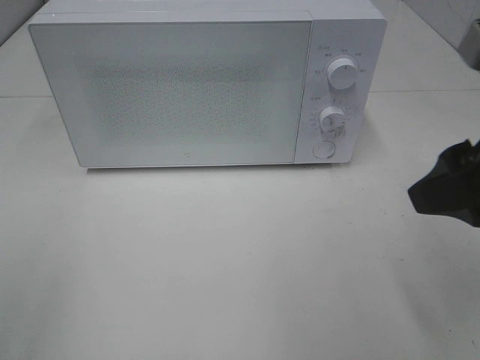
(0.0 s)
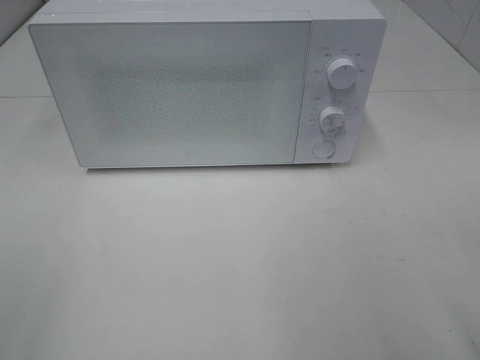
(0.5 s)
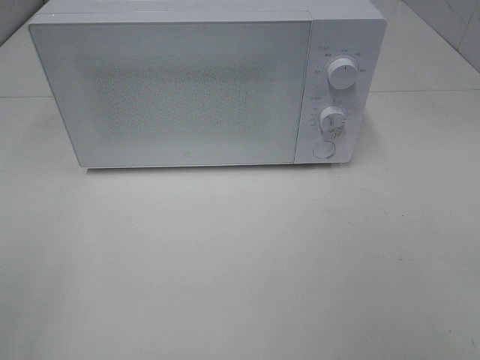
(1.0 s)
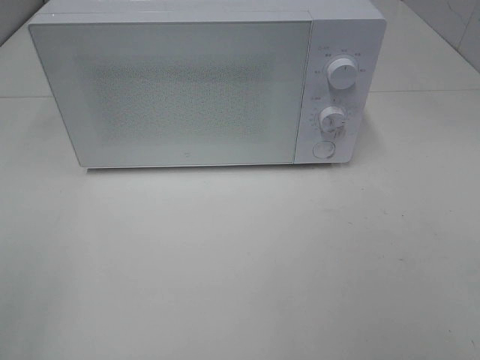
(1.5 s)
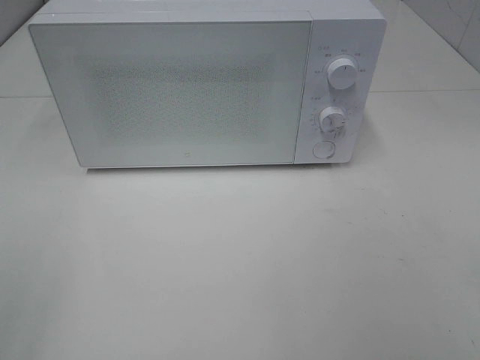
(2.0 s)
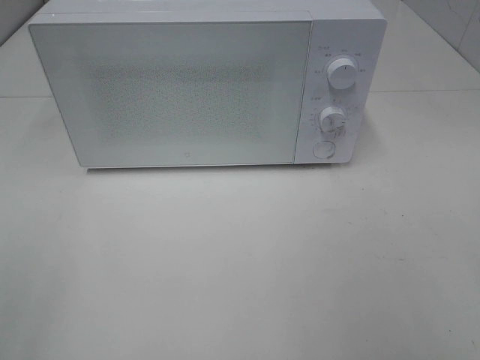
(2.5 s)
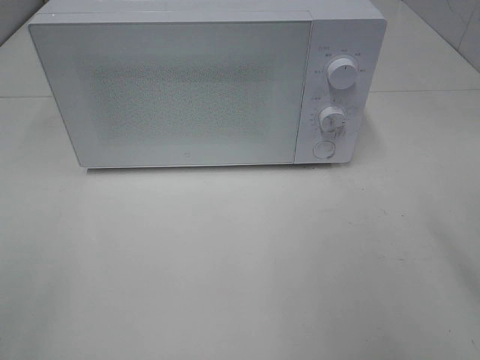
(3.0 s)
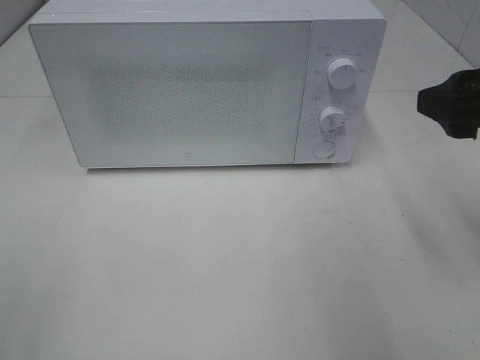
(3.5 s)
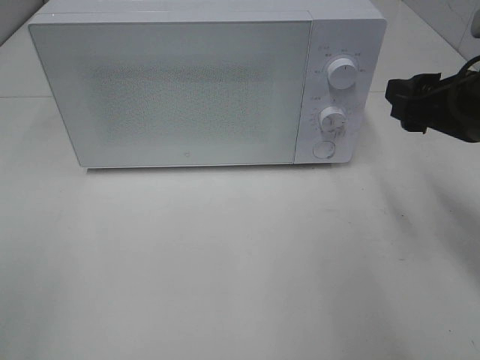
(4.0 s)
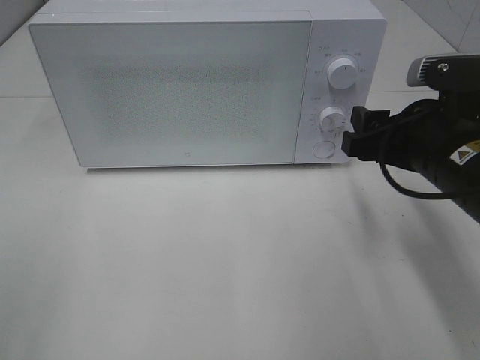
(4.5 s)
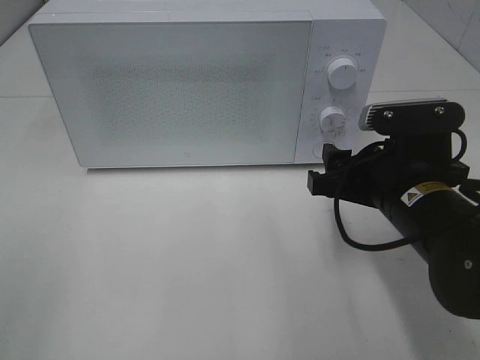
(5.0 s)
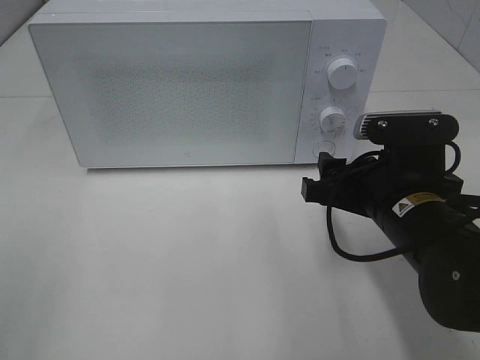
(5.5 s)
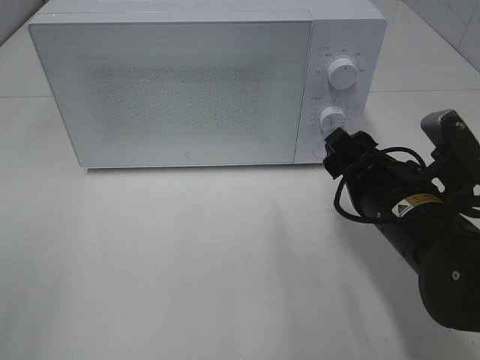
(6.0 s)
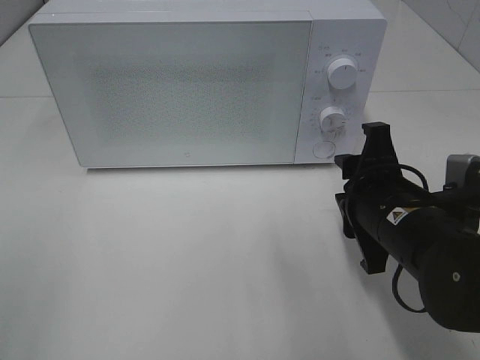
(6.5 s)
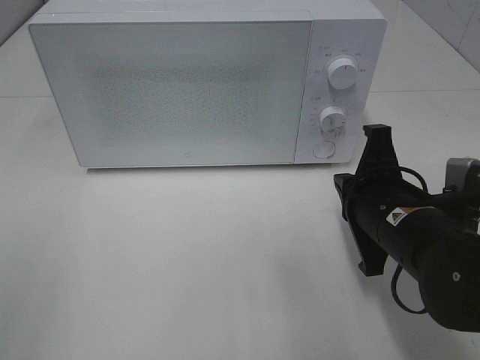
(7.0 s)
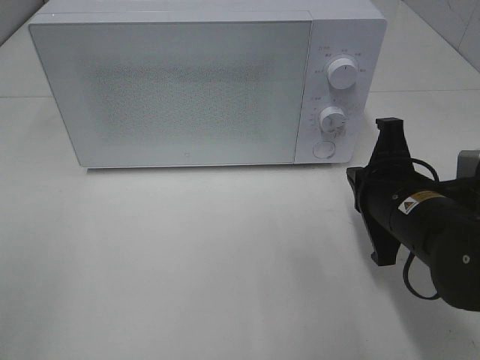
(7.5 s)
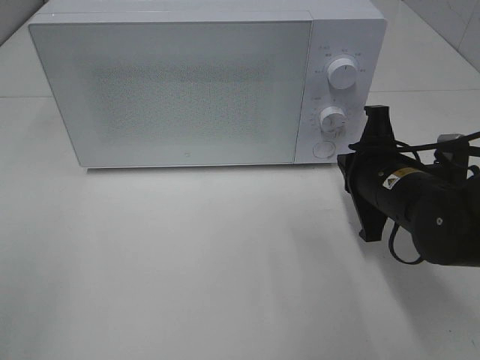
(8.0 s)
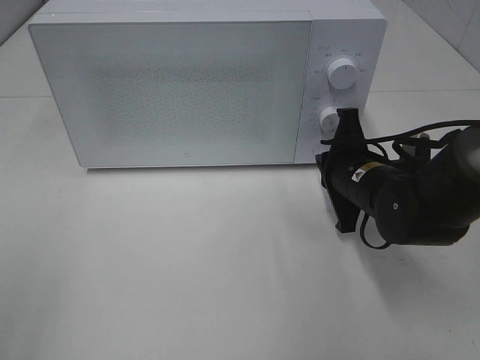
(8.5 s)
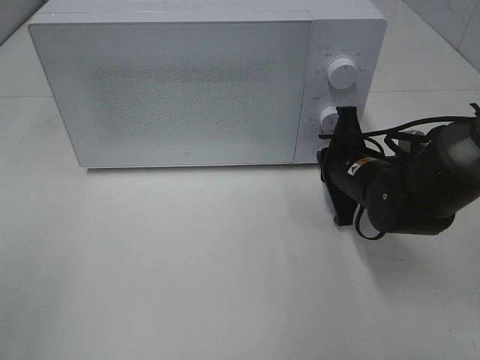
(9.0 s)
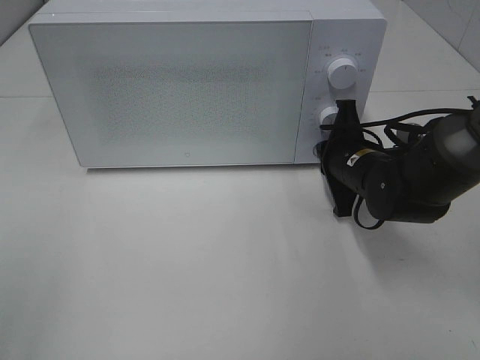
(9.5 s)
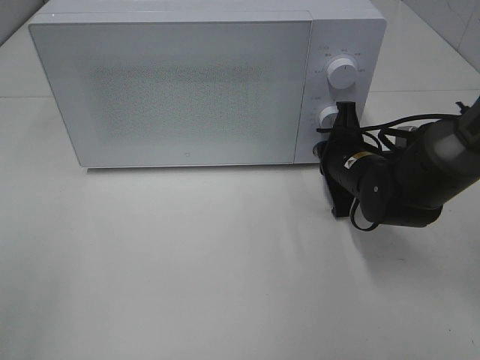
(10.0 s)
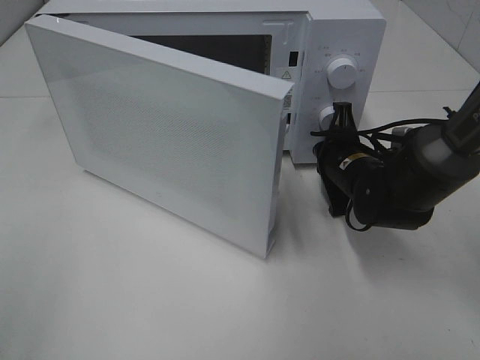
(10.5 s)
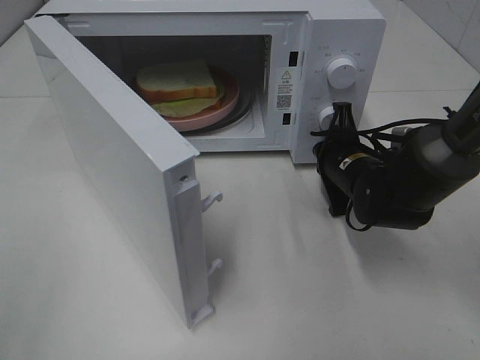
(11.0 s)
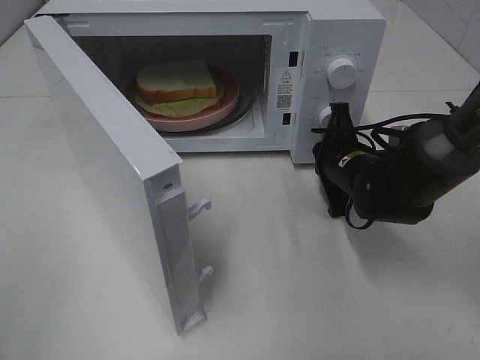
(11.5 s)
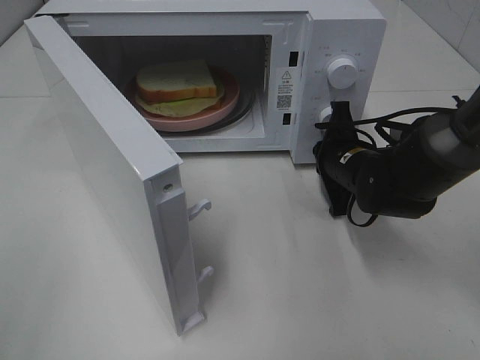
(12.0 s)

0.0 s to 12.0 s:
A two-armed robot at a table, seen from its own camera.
Task of the whole recording: Heat Sandwich.
0.0 to 2.0 s: The right gripper travels backward and to the right by roughly 20 cm.
2.0 to 4.0 s: The right gripper goes roughly 25 cm forward.
4.0 to 6.0 s: The right gripper travels downward and to the left by roughly 10 cm.
6.0 to 8.0 s: The right gripper shifts about 5 cm forward, and closes up.
8.0 to 10.0 s: The right gripper moves forward, roughly 10 cm.

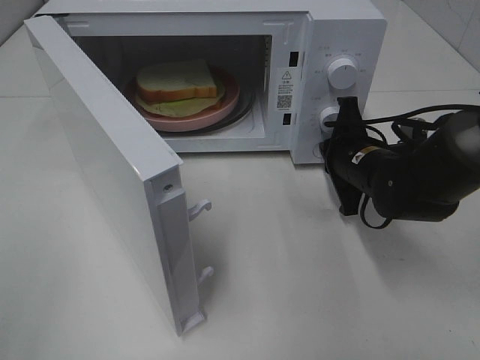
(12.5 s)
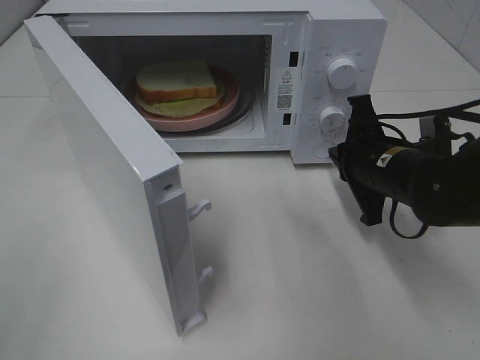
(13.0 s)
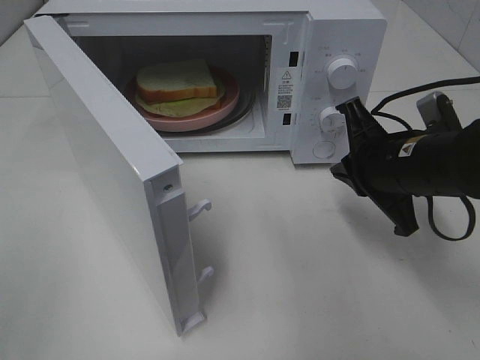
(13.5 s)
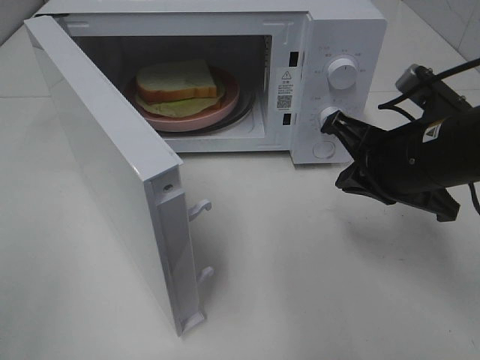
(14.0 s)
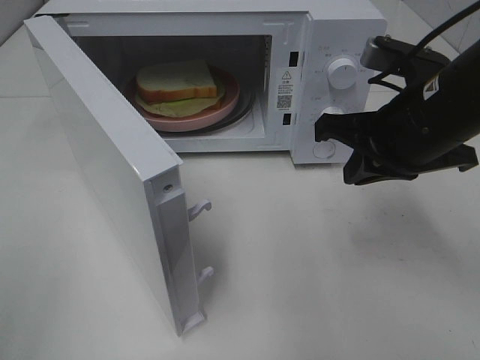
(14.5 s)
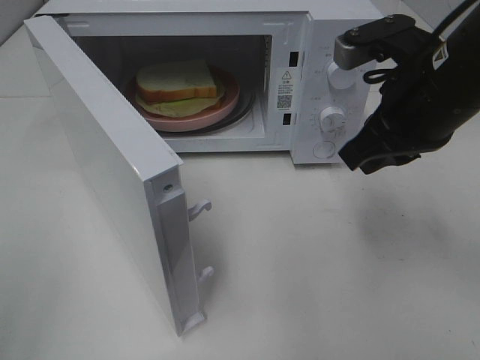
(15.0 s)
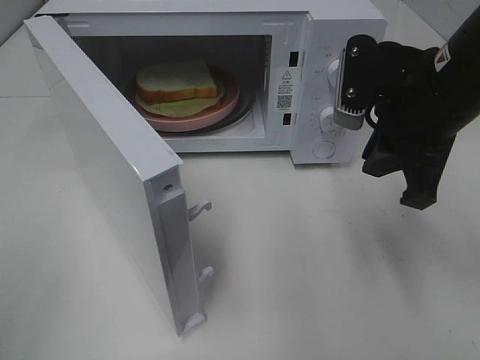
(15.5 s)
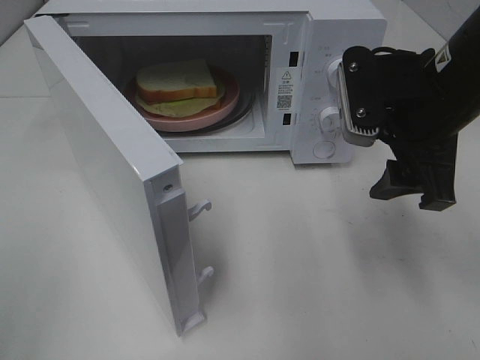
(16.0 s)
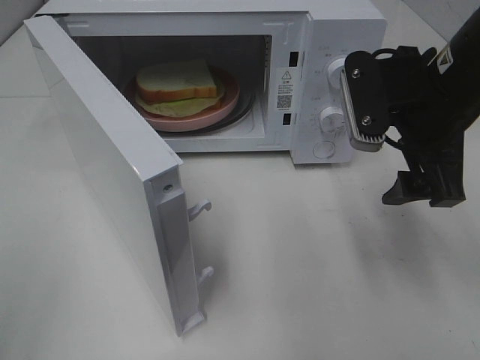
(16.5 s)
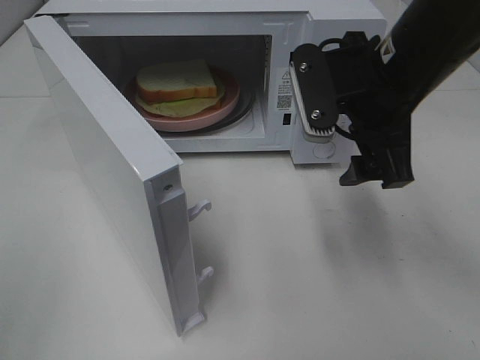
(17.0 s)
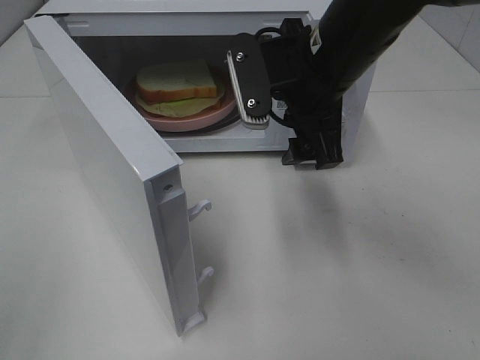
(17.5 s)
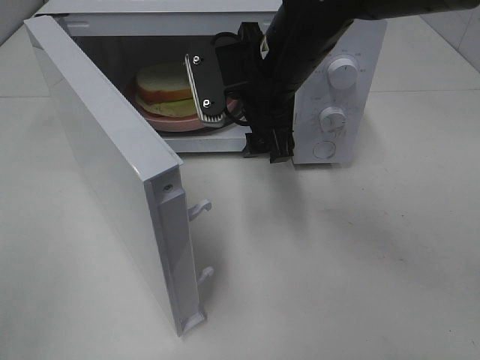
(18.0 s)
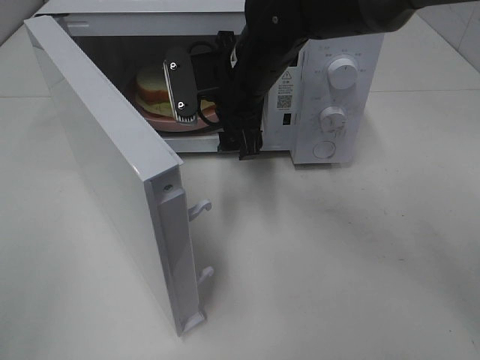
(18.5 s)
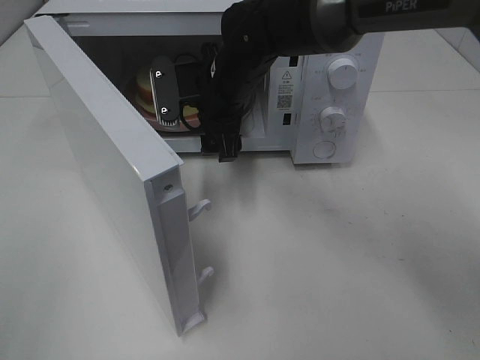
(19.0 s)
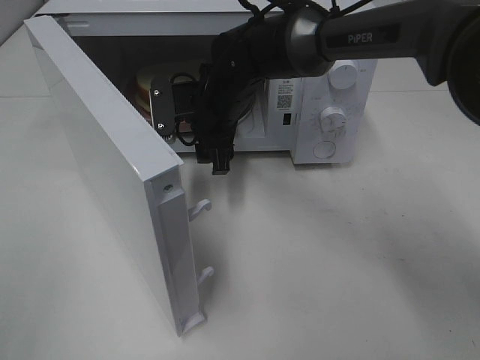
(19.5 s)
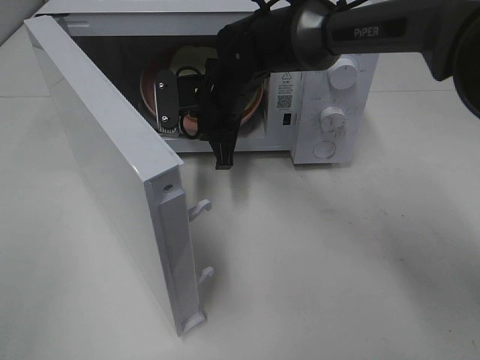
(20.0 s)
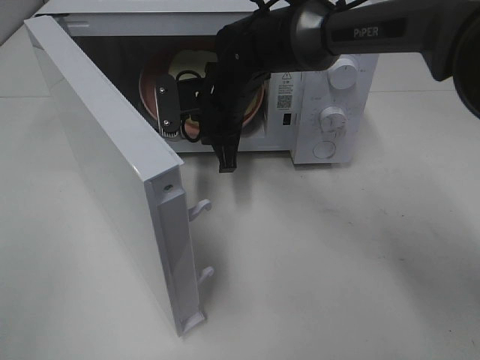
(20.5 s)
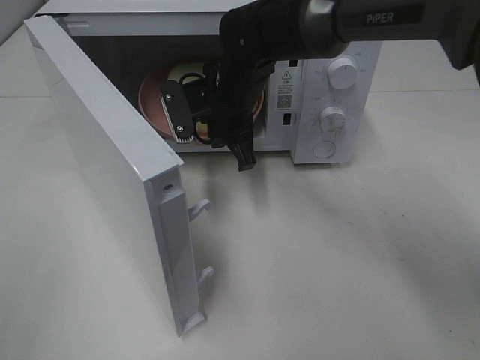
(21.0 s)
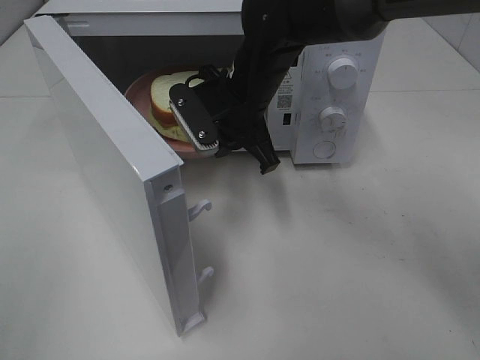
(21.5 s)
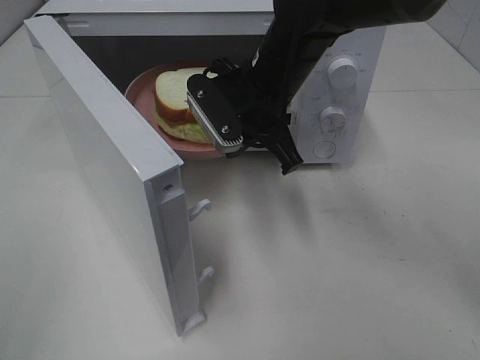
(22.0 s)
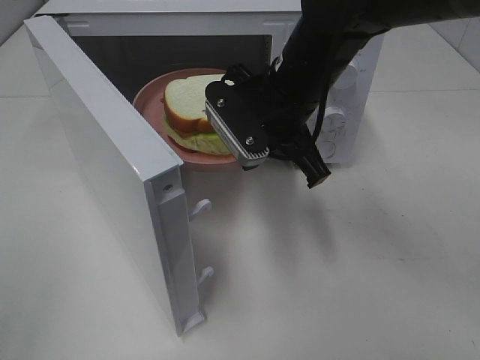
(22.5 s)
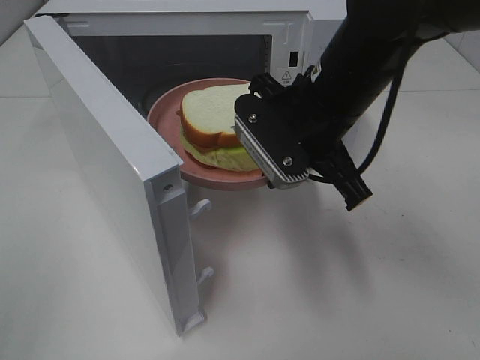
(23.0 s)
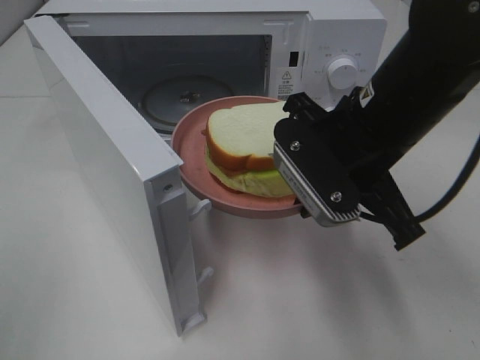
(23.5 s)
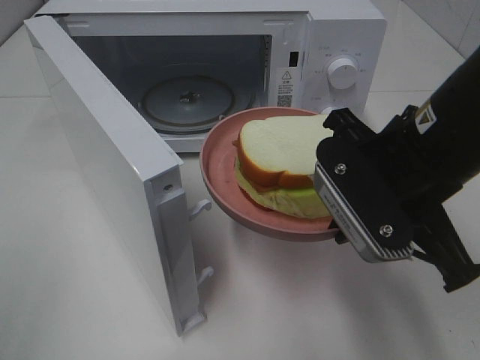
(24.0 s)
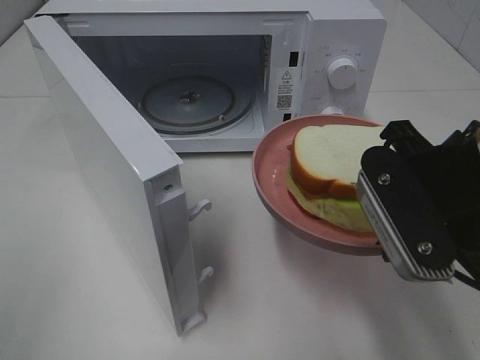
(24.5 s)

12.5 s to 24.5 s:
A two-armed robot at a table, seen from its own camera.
Task of the whole recording: Heat Sandwich.
Step, 13.0 to 19.5 s: Right hand: grab the plate with the sandwich.
12.5 to 14.5 s: The right gripper moves upward and backward, approximately 15 cm.
14.5 to 16.5 s: The right gripper opens up.
16.5 to 18.5 s: The right gripper shifts some 20 cm to the left and forward.
18.5 to 20.5 s: The right gripper heads downward, covering about 5 cm, and closes.
20.5 to 22.5 s: The right gripper goes approximately 15 cm backward, upward and to the right.
22.5 to 24.5 s: The right gripper moves backward and to the right, some 20 cm.

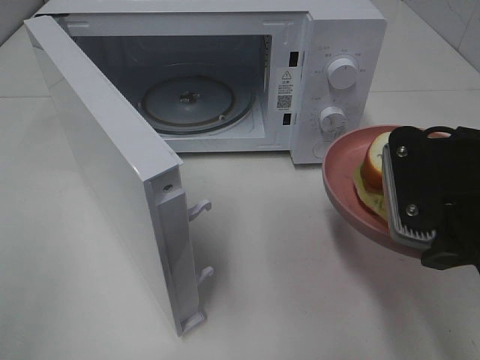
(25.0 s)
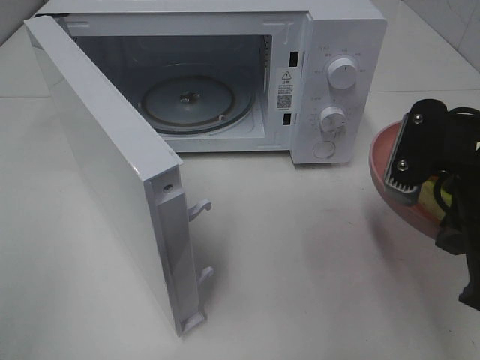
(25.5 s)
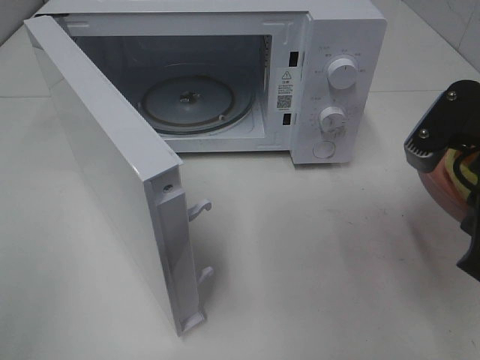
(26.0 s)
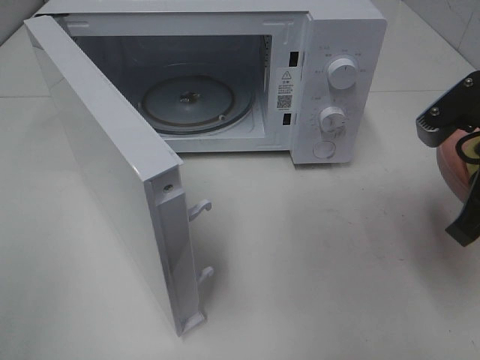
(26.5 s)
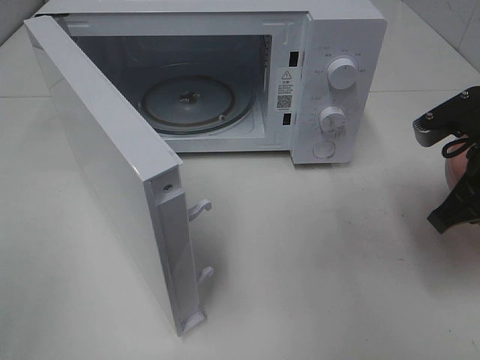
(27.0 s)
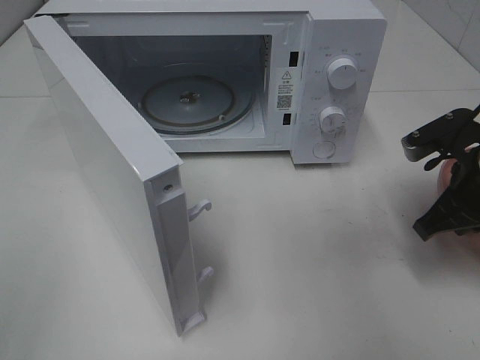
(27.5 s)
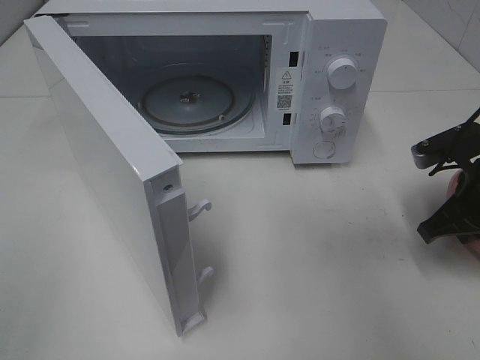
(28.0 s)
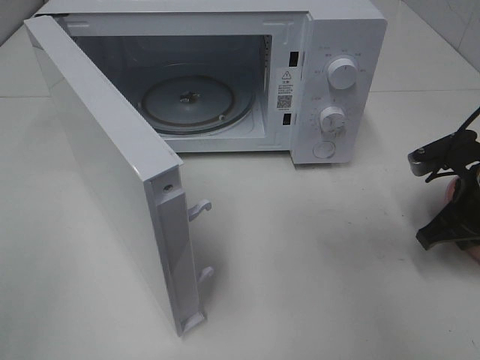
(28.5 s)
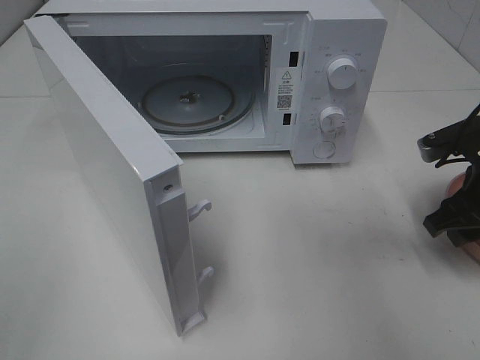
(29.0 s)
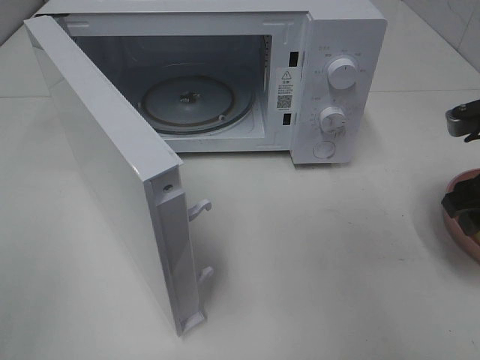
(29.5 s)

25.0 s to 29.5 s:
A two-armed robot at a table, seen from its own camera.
Task of the whole recording: Heat Sandwich.
25.0 to 27.0 s: The right gripper shifts roughly 10 cm forward and to the right.
27.0 to 29.5 s: The right gripper opens its fingers.
